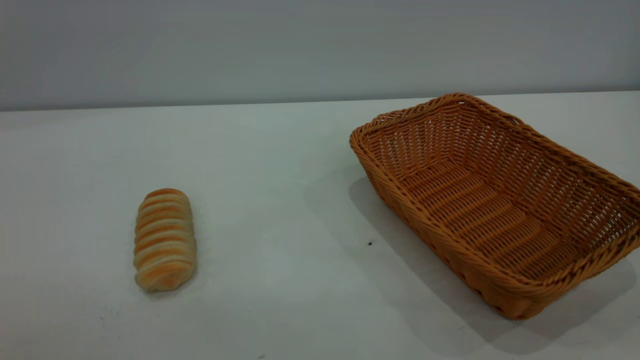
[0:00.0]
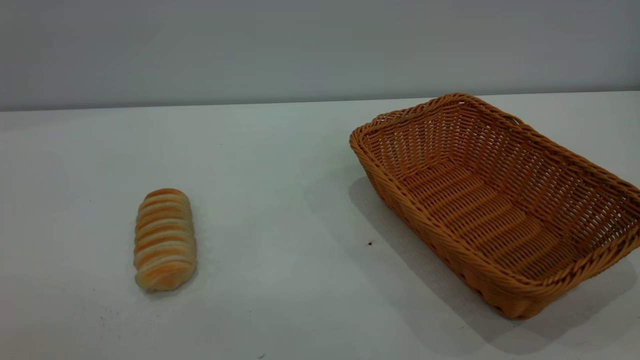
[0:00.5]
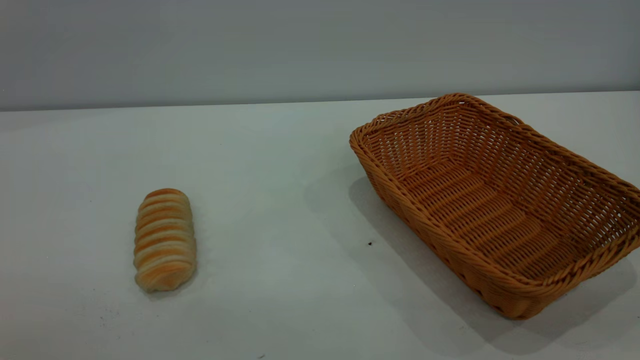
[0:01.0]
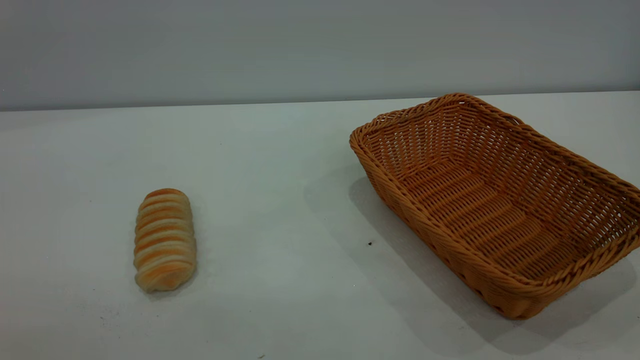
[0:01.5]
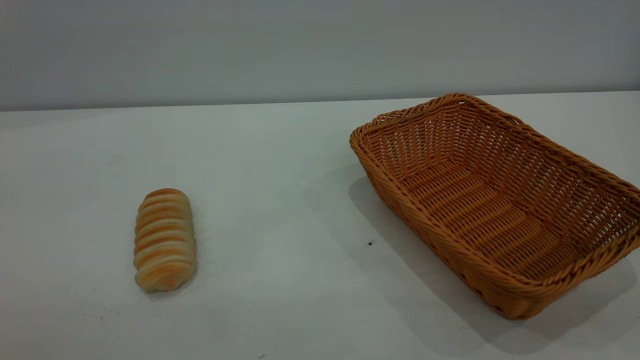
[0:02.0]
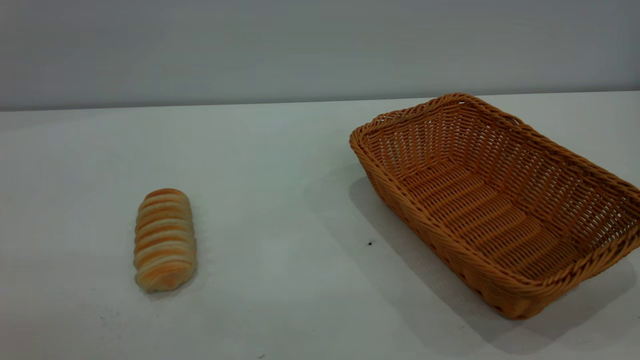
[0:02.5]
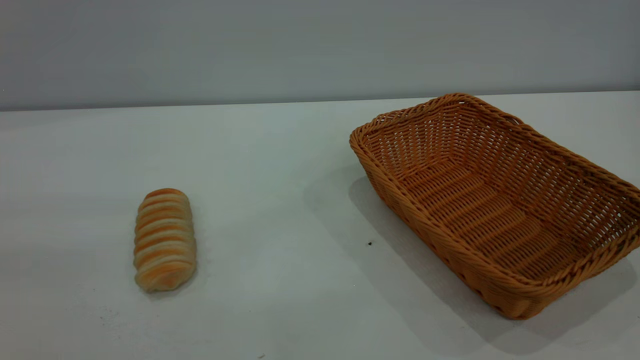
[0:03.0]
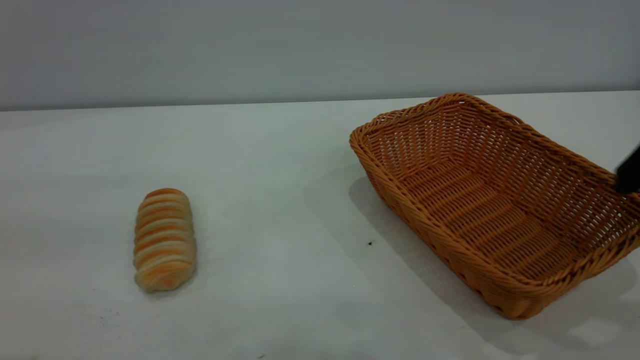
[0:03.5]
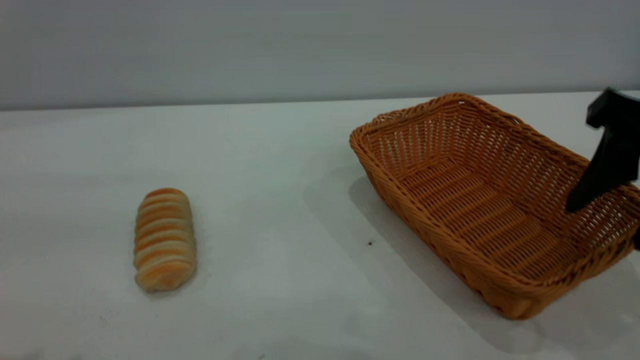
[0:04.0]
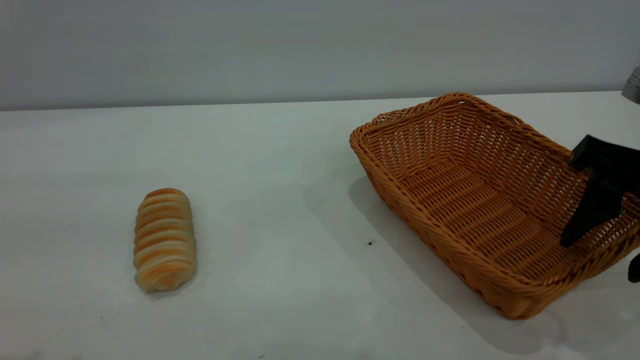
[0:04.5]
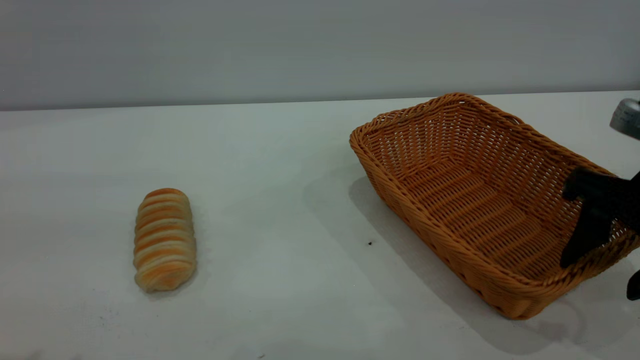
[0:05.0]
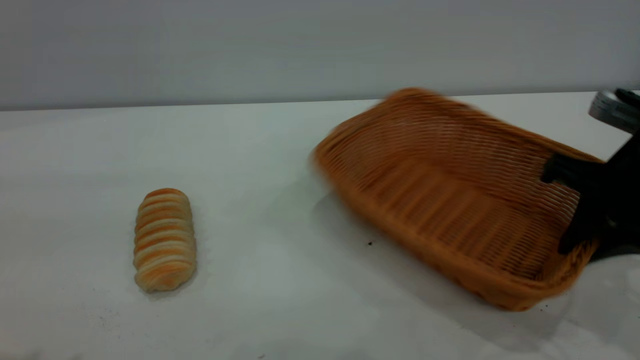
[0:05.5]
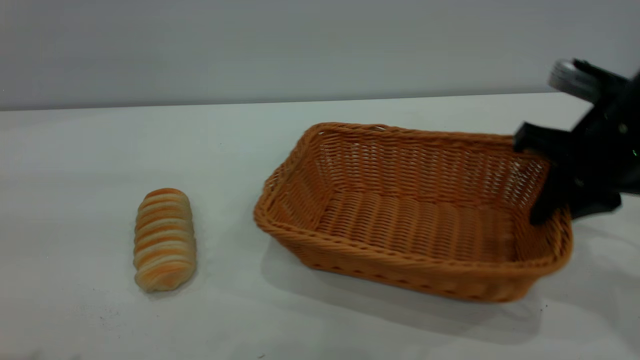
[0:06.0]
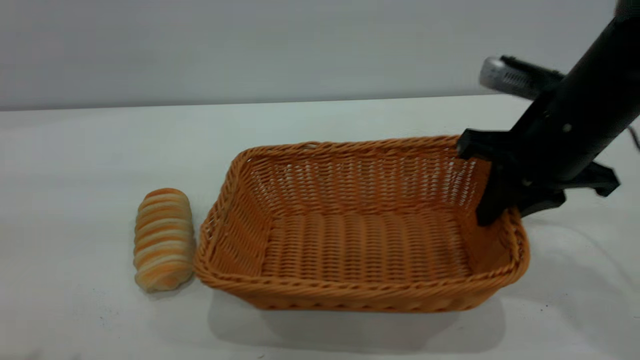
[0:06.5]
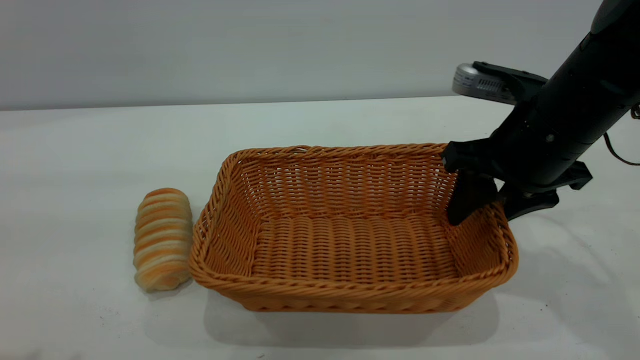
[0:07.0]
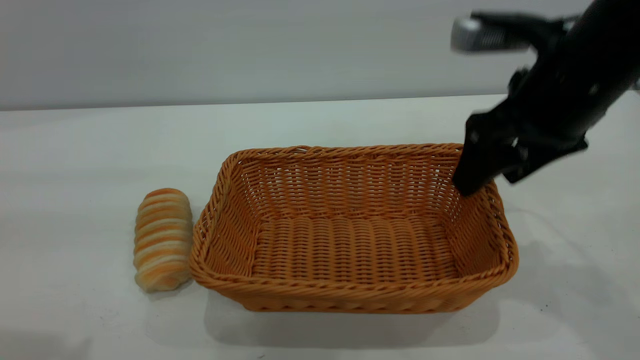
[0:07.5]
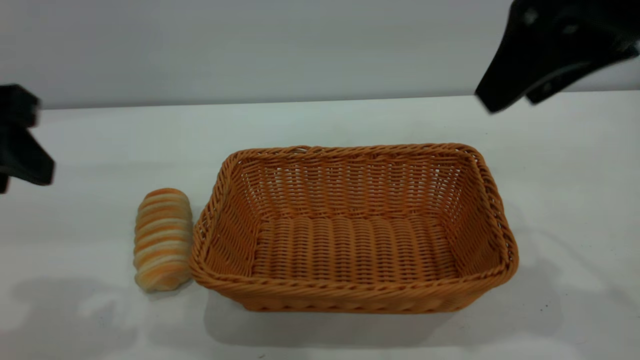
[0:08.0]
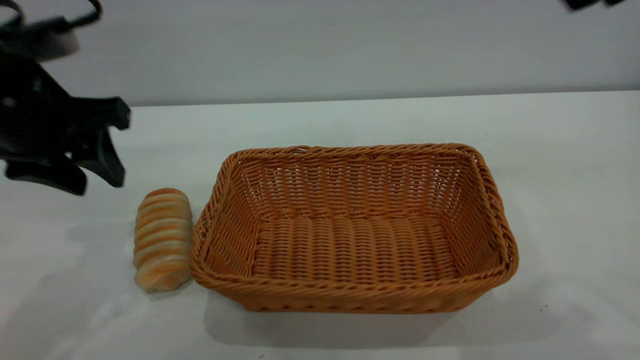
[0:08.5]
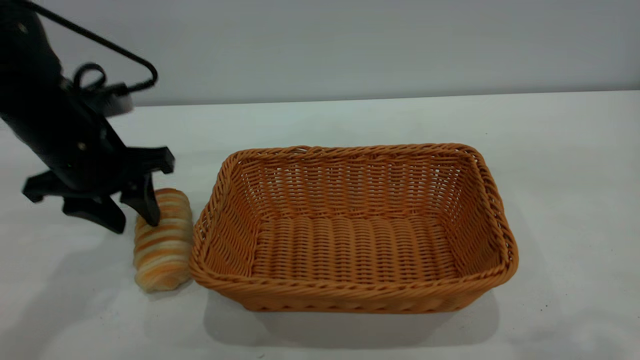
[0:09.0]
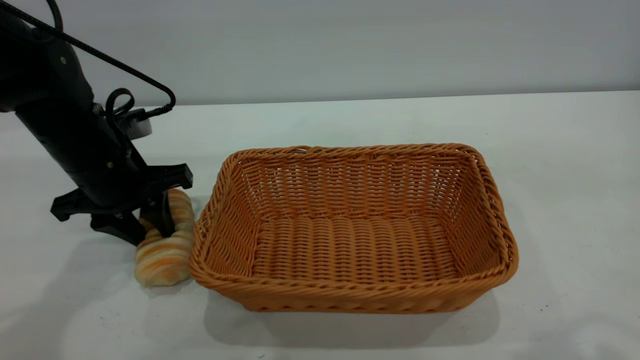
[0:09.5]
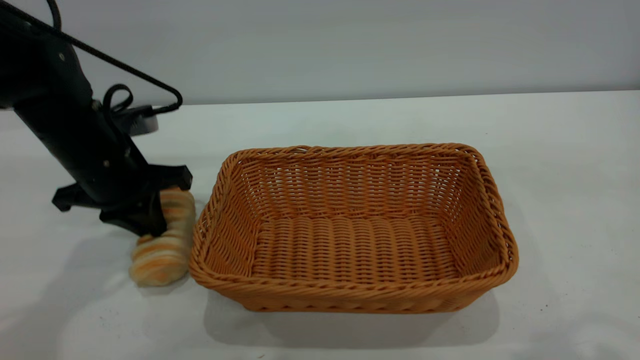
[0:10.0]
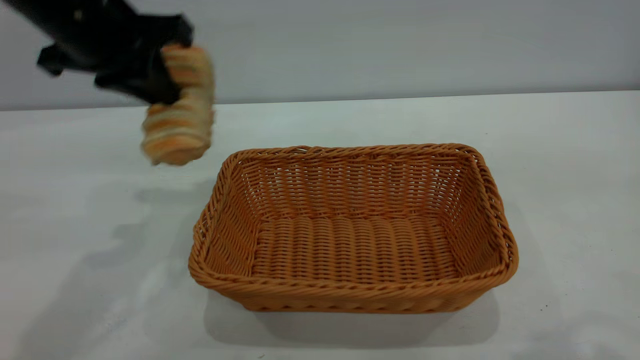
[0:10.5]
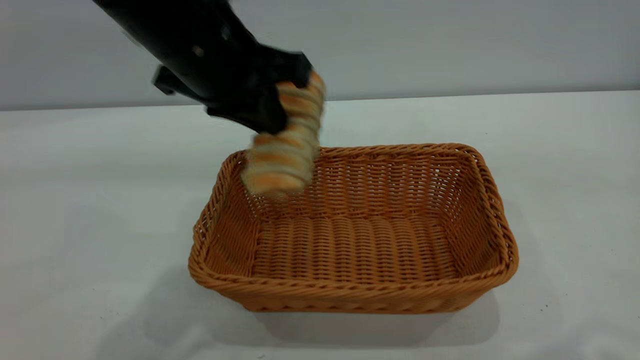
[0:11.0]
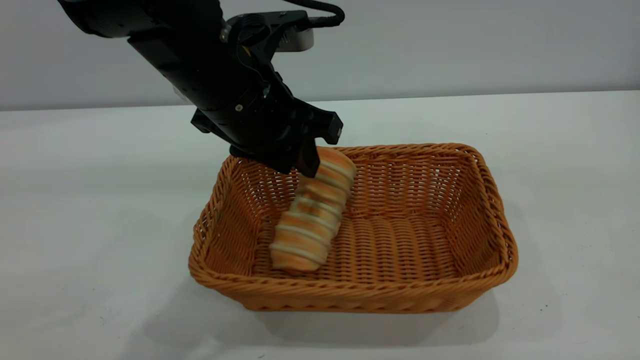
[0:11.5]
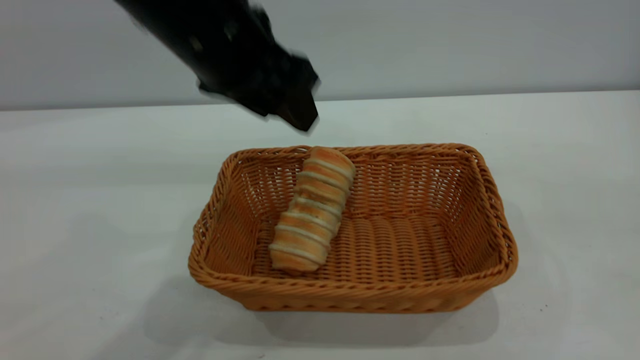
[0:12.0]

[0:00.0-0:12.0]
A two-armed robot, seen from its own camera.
Task of the whole recording: One hand grasps the yellow basket and places it in the middle of the table, while the other hand picks up the long bread and puts it into the yellow basket.
Step, 0:00.0 to 0:07.5: Move the basket to the center of view.
Step, 0:10.5 to 0:11.5: place the bread into the basket.
0:02.0 to 0:04.0: The right gripper travels forward and downward by approximately 25 cm.
0:04.0 to 0:06.0: The right gripper is displaced forward by roughly 10 cm, and closes up.
0:06.0 to 0:08.0: The left gripper goes some 10 cm forward and downward. The right gripper goes about 15 cm upward, and opens up.
0:08.0 to 0:10.0: The left gripper heads forward and downward, covering about 20 cm, and closes; the right gripper goes some 15 cm backward and upward.
0:10.0 to 0:12.0: The right gripper moves backward, approximately 10 cm. The left gripper travels upward and to the right by about 20 cm, and opens up.
